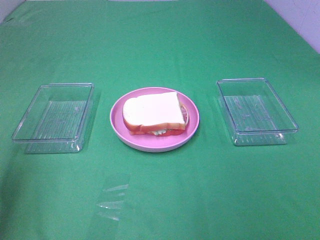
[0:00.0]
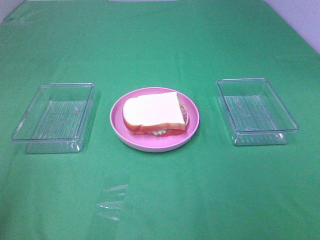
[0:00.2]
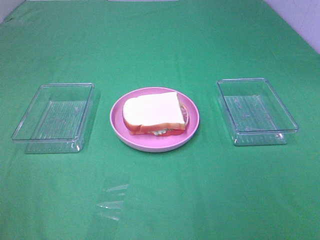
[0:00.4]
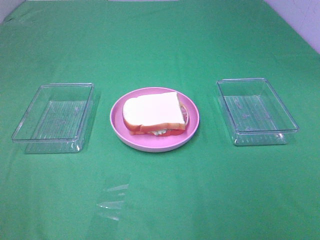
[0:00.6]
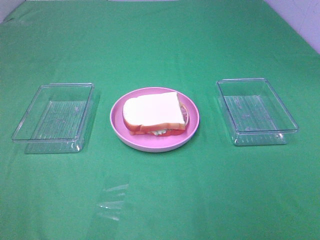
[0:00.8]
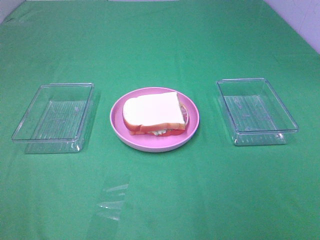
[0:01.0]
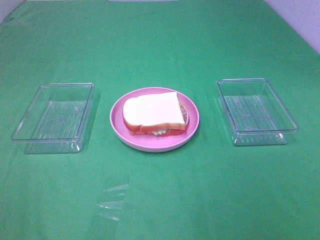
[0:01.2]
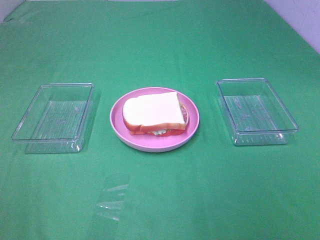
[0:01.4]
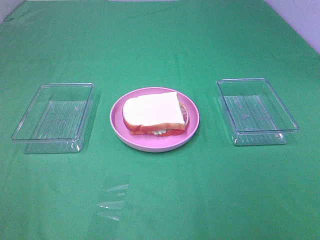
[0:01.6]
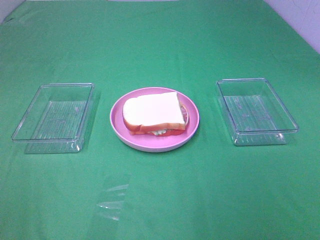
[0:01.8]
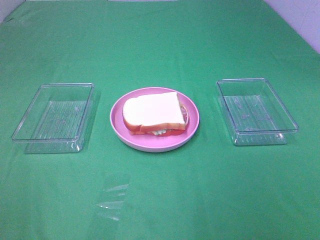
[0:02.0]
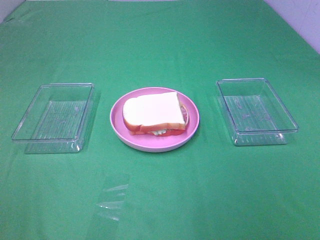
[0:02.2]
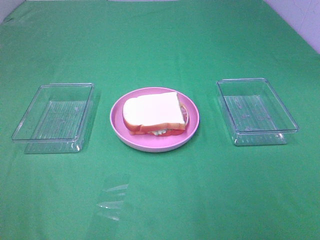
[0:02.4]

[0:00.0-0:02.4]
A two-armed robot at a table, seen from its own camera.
Task of the whole recording: Make sandwiches.
0:00.0 to 0:01.2: The left gripper heads backward, covering about 20 cm.
0:01.2 to 0:02.4: Both grippers stay about where they are.

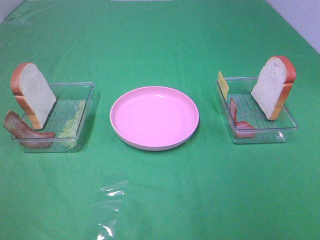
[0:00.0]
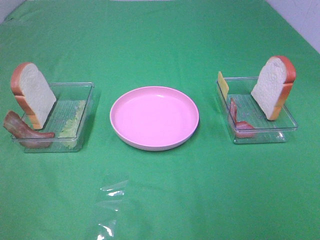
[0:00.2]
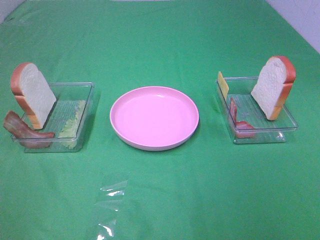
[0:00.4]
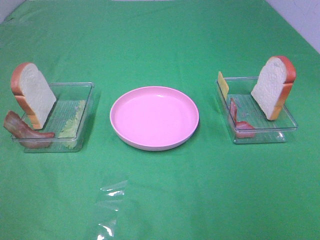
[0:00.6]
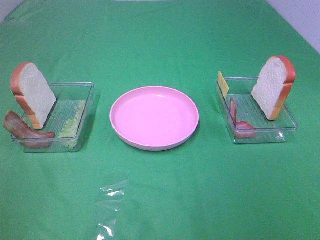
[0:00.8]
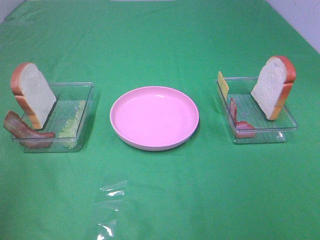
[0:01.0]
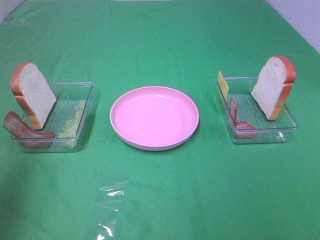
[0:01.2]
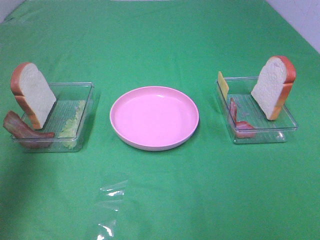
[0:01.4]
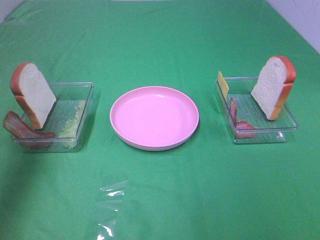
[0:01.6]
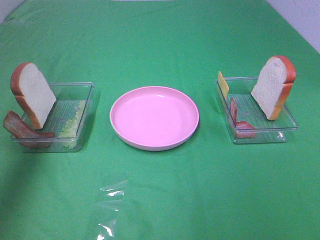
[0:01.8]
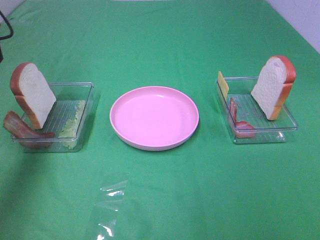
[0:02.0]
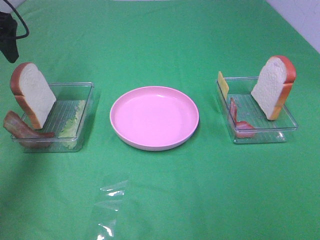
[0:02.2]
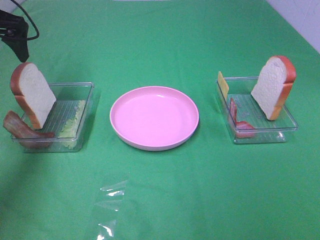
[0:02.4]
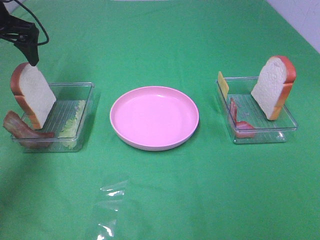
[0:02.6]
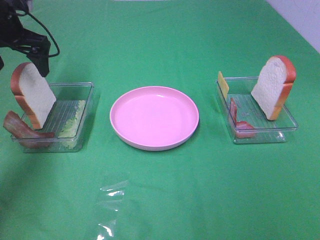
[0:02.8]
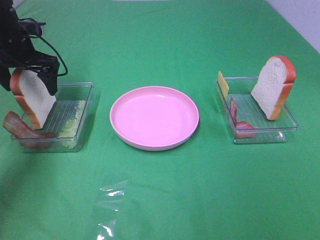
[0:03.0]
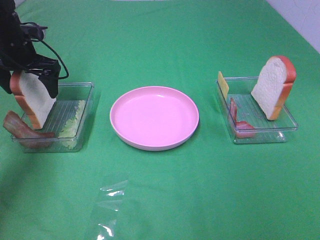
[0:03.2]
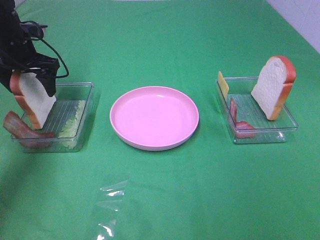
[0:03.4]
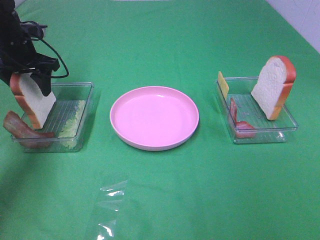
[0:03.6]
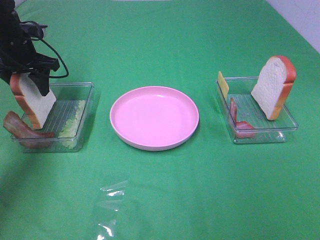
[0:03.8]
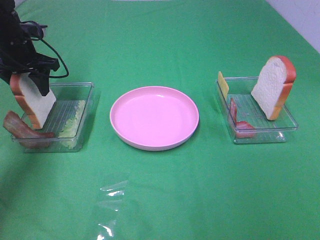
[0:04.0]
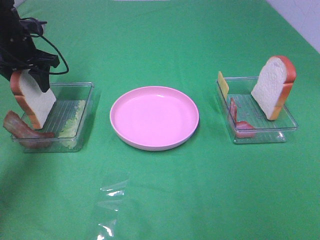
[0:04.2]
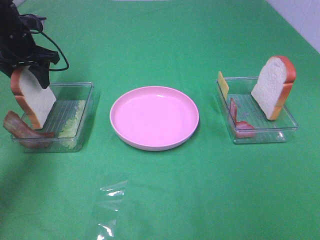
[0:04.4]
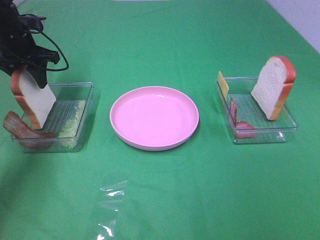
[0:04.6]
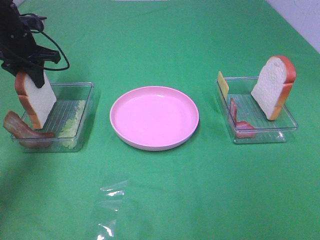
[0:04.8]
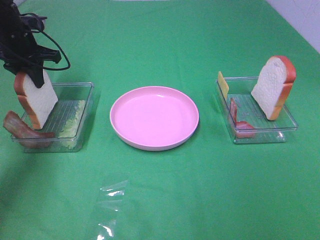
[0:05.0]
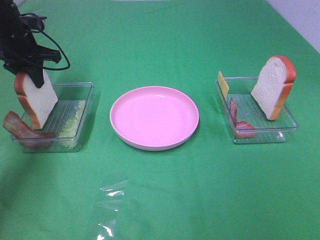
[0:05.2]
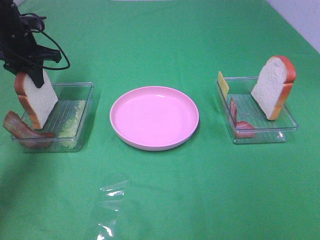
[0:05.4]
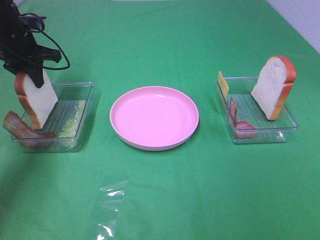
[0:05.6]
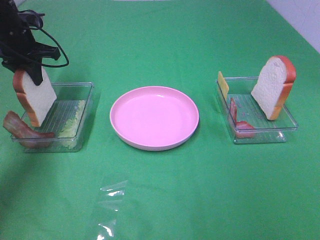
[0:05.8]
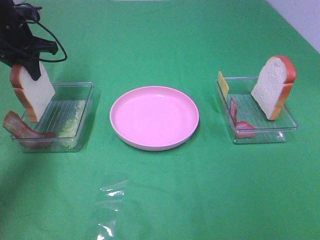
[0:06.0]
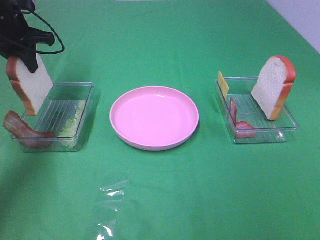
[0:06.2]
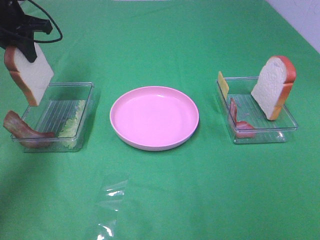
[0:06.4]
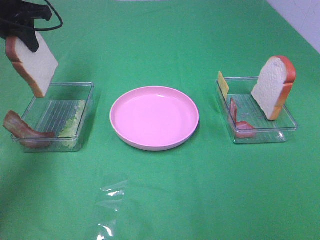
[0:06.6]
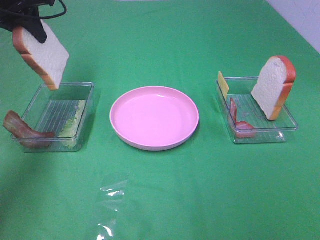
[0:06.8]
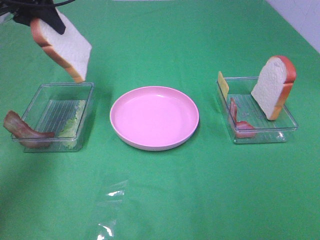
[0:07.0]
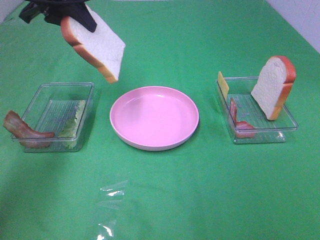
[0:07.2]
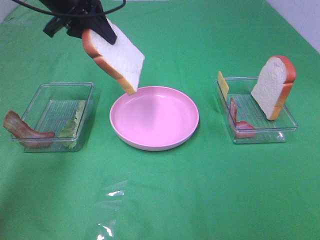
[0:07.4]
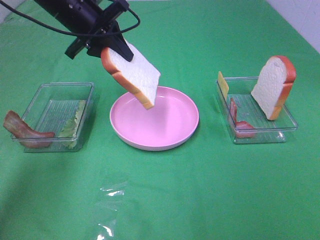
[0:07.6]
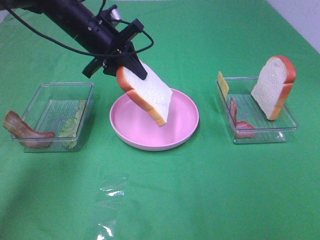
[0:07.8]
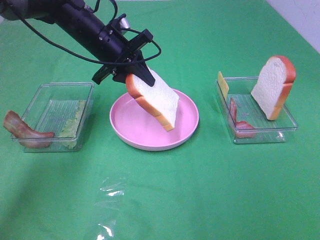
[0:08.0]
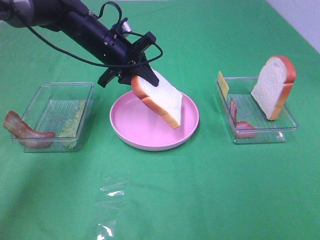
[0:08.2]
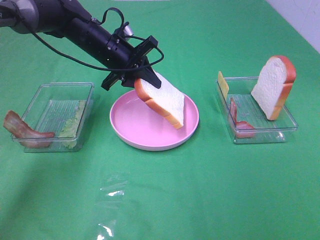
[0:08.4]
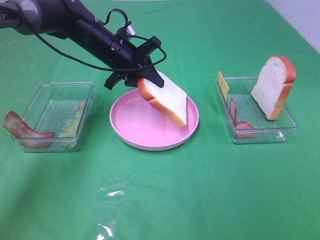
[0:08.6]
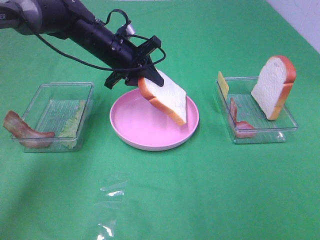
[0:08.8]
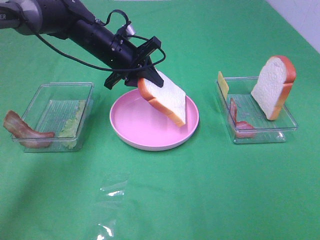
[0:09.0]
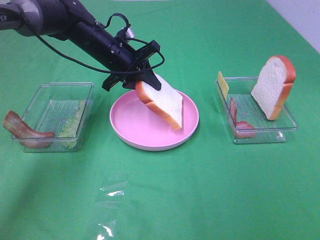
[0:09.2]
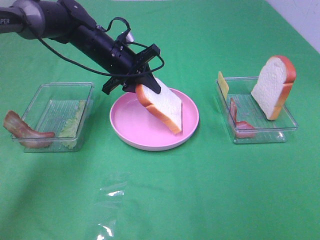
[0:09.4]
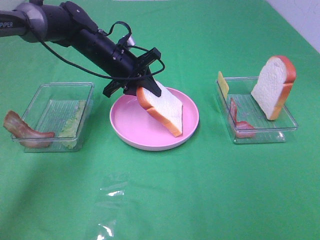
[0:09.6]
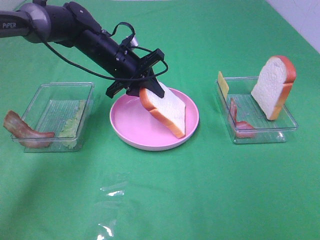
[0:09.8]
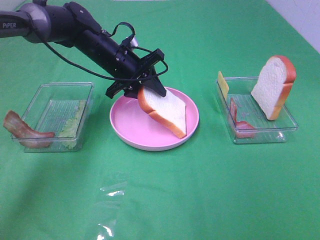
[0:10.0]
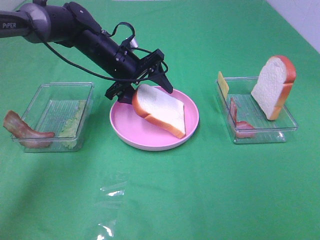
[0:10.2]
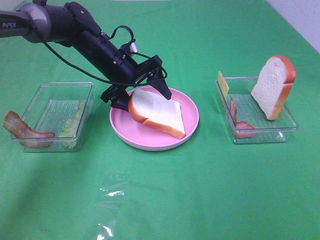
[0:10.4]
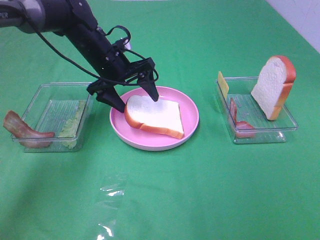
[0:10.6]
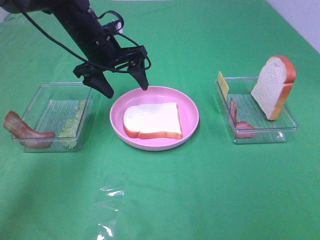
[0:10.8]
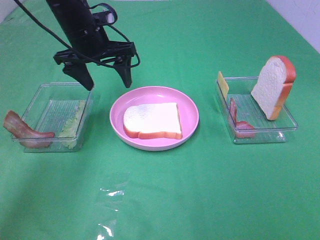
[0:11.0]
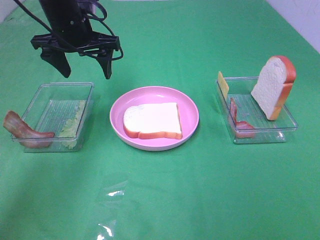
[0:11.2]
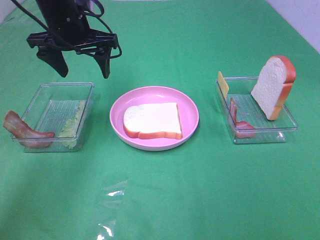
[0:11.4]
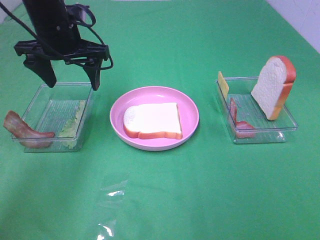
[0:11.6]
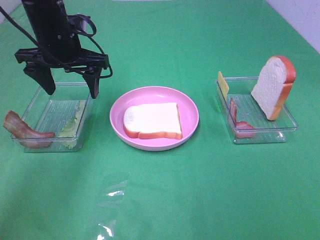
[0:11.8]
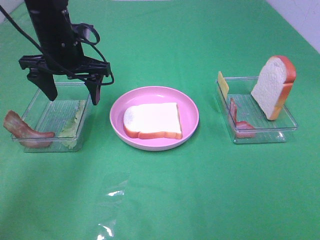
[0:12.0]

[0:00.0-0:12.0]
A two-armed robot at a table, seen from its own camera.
Task of the whole recording: Make sandwiches.
Step, 0:00.0 to 0:04.8: Left hand:grab the bread slice.
Step, 0:05.0 to 0:10.8: Left hand:place the bread slice on the plate.
0:00.0 to 0:01.6: The left gripper moves forward, about 30 cm.
0:01.6 to 0:03.0: The left gripper heads forward and downward, covering approximately 20 cm.
0:03.0 to 0:04.4: The left gripper closes up.
0:04.4 to 0:06.0: The left gripper closes up.
0:06.0 to 0:07.6: The left gripper is displaced to the right by about 15 cm.
0:07.6 to 0:09.0: The left gripper goes about 10 cm downward and to the right.
0:09.0 to 0:10.4: The left gripper opens up.
0:10.4 to 0:12.0: The left gripper shifts roughly 10 cm upward and to the left.

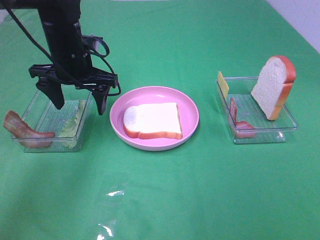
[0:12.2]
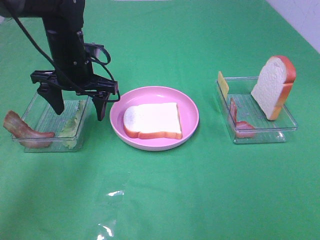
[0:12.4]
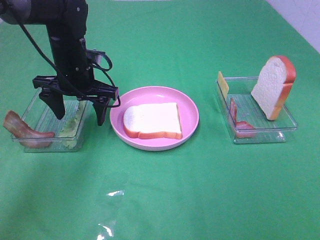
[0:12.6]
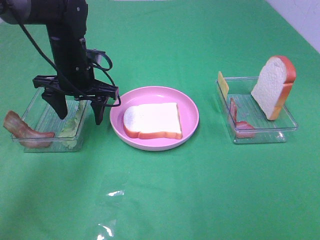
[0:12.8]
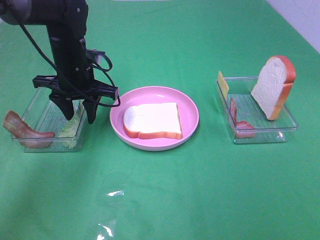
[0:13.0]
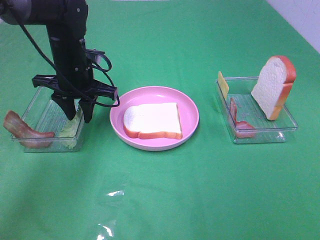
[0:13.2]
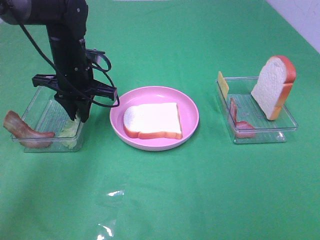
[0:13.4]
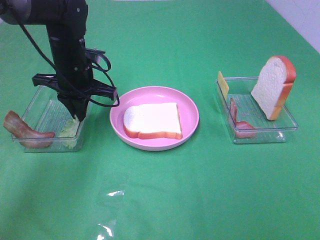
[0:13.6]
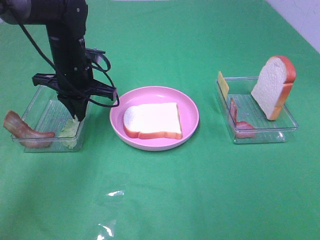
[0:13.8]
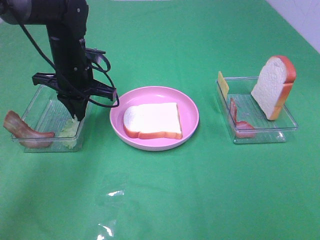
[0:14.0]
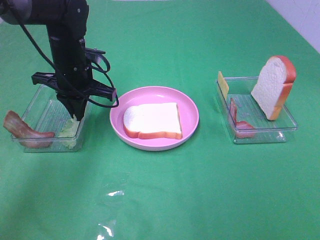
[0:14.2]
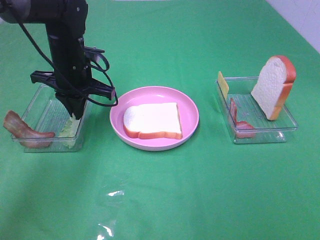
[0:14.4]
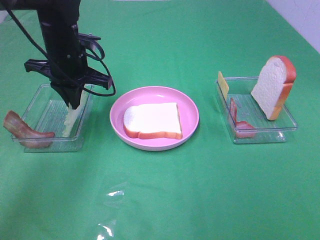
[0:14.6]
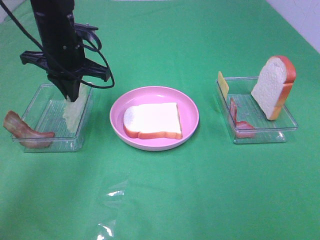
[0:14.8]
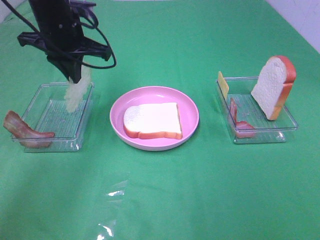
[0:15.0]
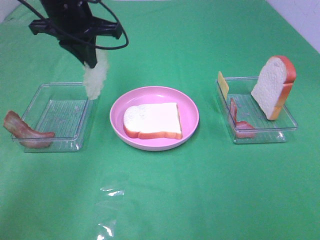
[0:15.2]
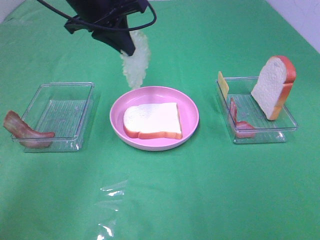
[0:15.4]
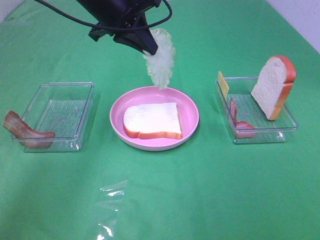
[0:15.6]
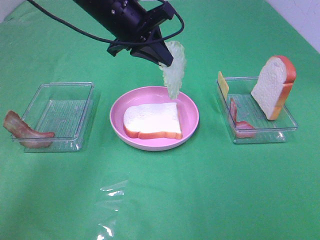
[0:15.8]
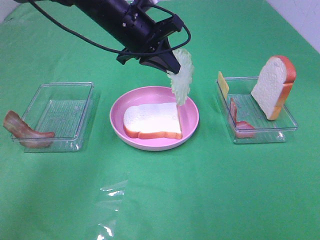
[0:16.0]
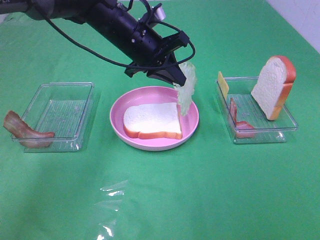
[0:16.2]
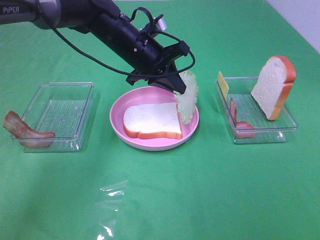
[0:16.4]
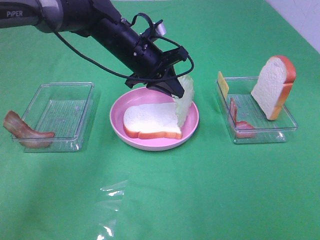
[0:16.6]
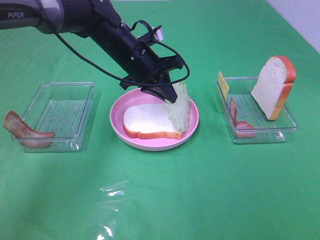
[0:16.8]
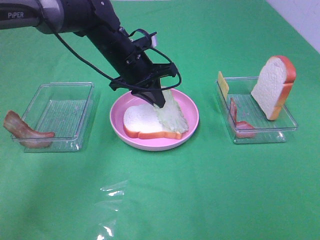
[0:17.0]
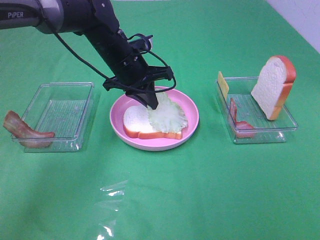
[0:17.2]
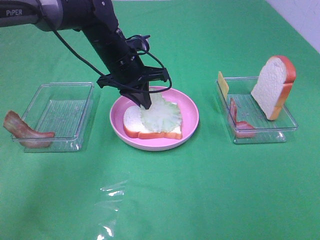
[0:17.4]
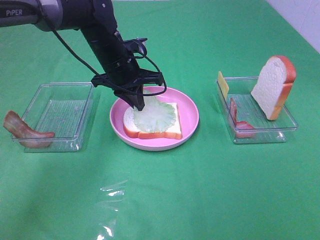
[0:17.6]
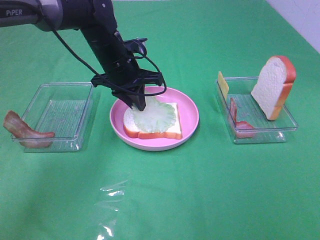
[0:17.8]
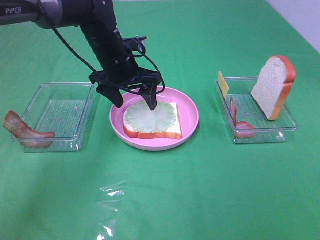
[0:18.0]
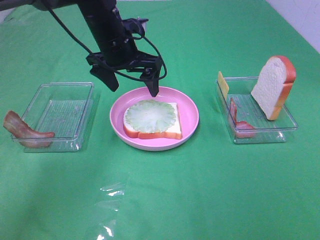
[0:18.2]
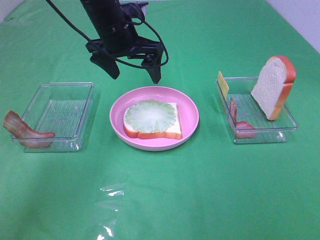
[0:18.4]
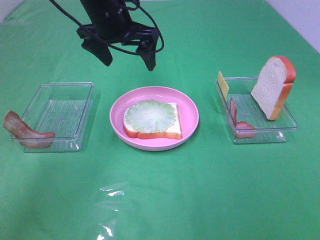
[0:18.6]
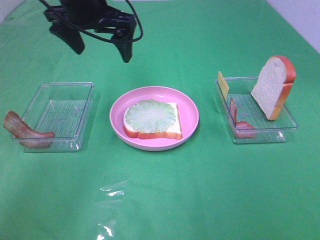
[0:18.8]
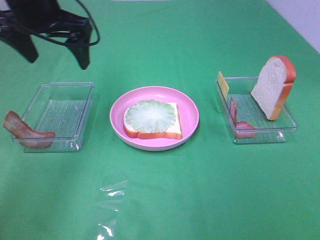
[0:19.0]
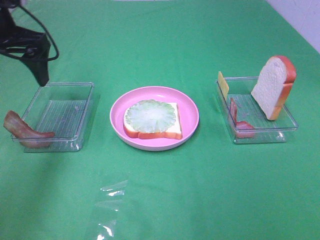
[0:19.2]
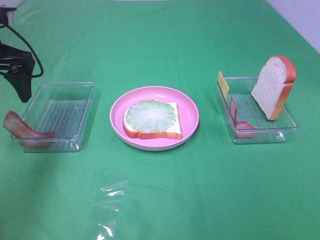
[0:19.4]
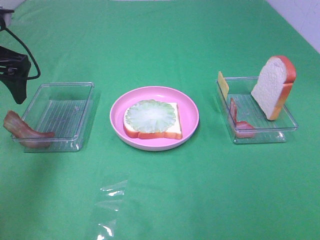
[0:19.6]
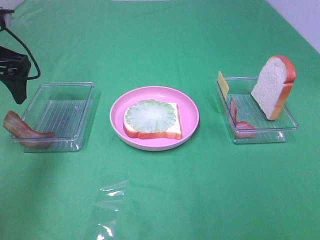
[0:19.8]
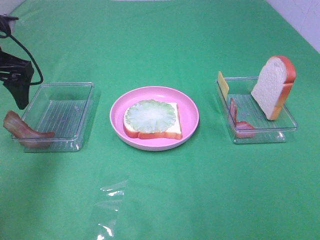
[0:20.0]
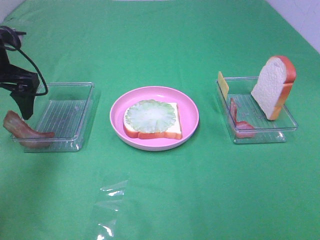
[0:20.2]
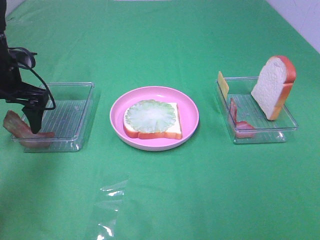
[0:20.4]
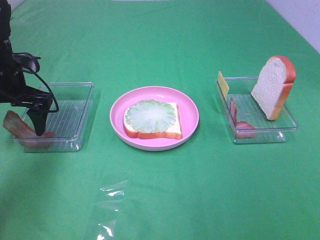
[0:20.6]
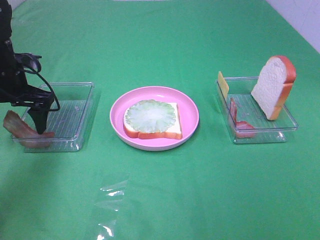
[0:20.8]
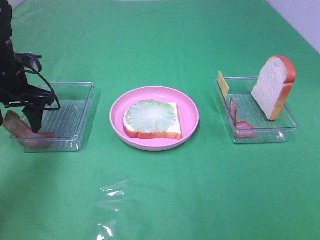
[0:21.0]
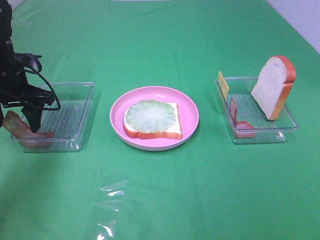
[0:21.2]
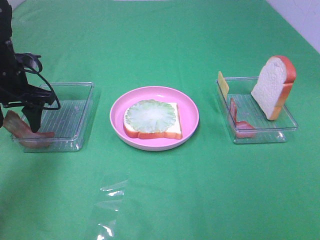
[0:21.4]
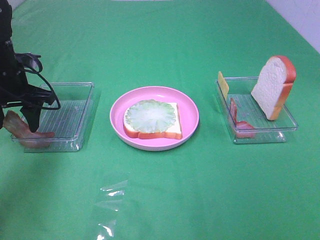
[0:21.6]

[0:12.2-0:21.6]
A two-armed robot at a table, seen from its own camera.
Task of the whole recording: Make sandwiches.
Step, 0:12.2 to 0:13.8: Left hand:grab the lettuce slice.
Step, 0:14.0 to 0:18.0: Left hand:place the lettuce slice on the bread slice.
0:12.2 to 0:13.8: The left gripper closes up.
0:13.8 to 0:15.4: The left gripper moves upward, roughly 15 cm.
0:15.4 to 0:17.0: The left gripper shifts approximately 15 cm downward.
0:17.0 to 0:18.4: The left gripper shifts approximately 5 cm upward, and opens its fingers.
0:18.4 to 0:20.0: The left gripper heads to the left and backward, covering some 20 cm.
0:20.0 to 0:21.6: The left gripper heads downward, covering about 10 cm, and closes up.
